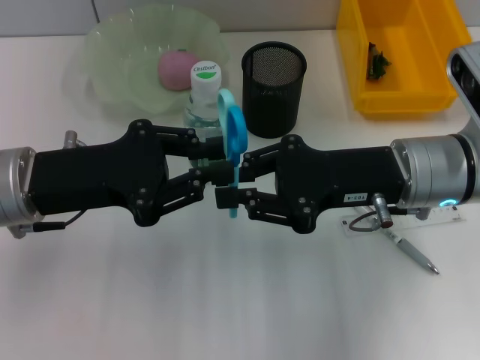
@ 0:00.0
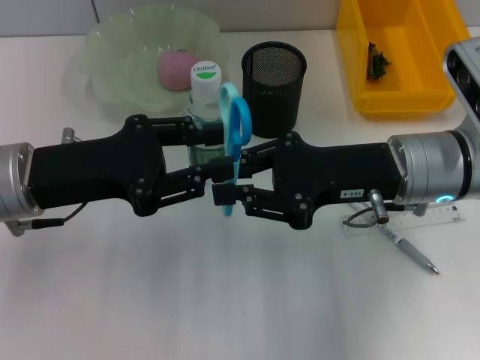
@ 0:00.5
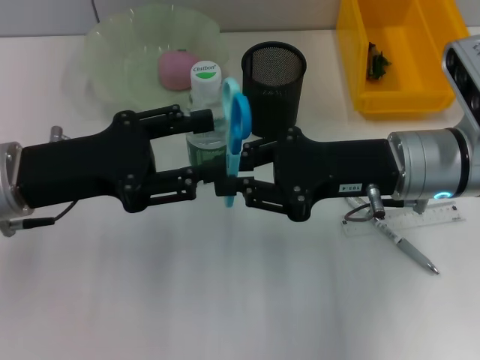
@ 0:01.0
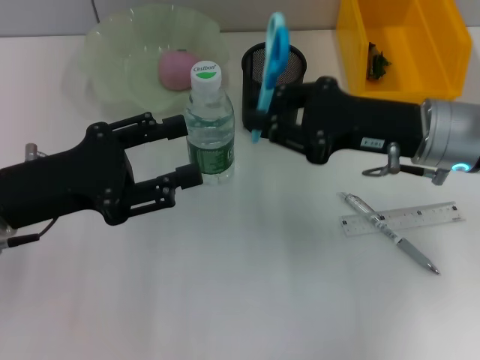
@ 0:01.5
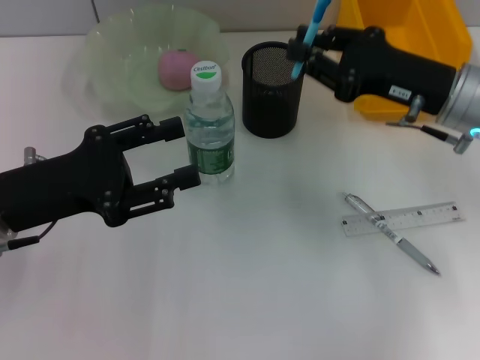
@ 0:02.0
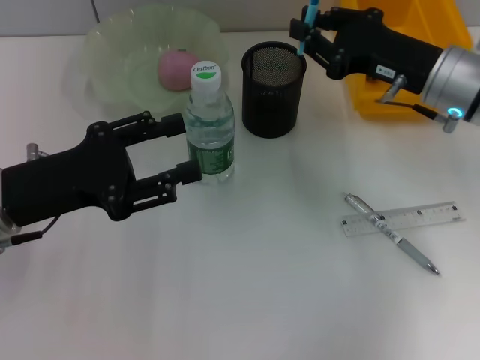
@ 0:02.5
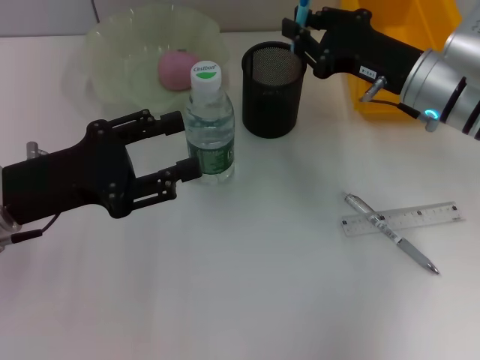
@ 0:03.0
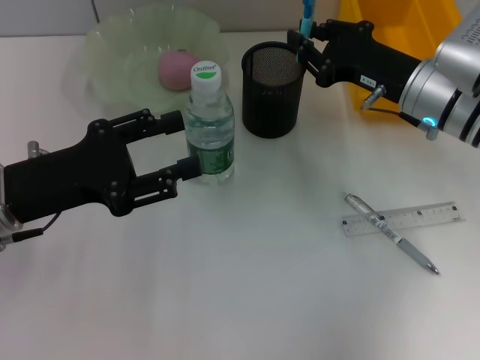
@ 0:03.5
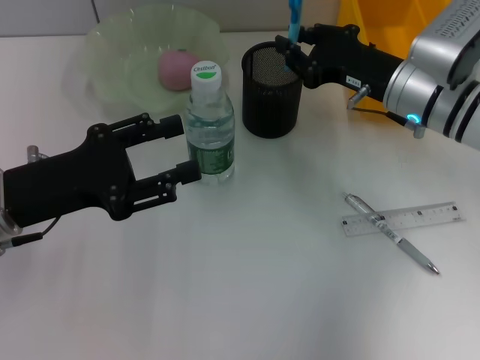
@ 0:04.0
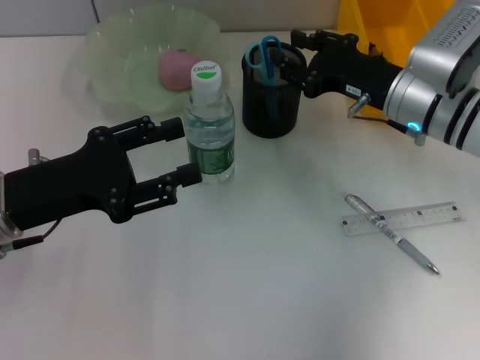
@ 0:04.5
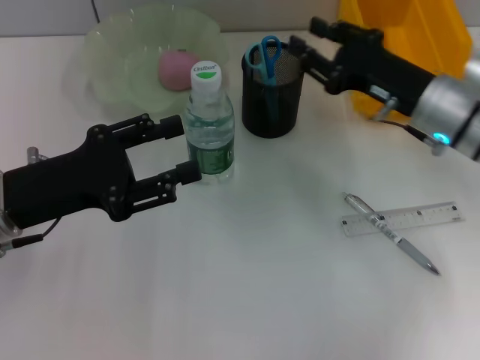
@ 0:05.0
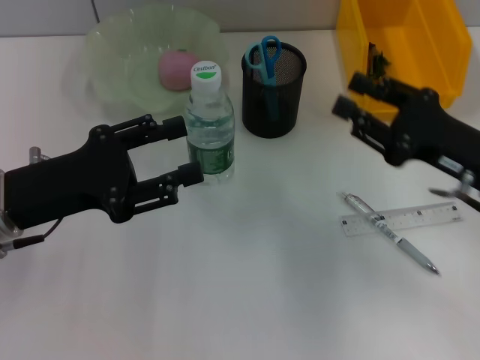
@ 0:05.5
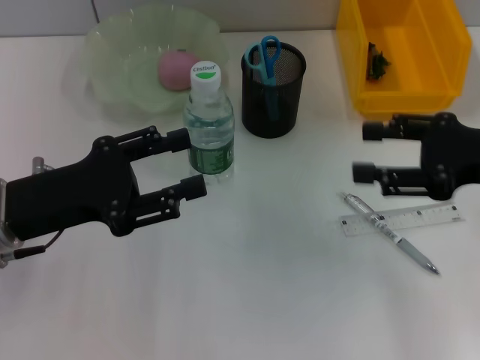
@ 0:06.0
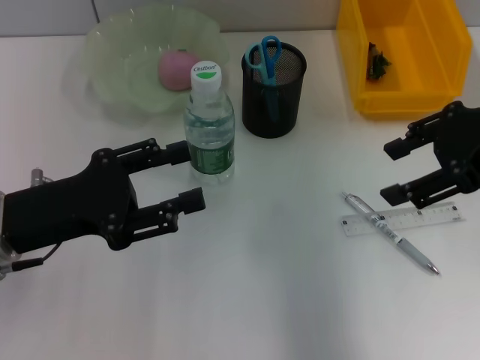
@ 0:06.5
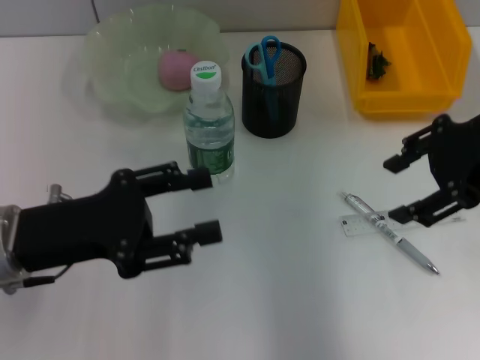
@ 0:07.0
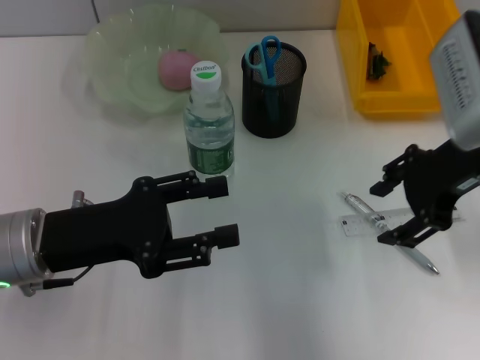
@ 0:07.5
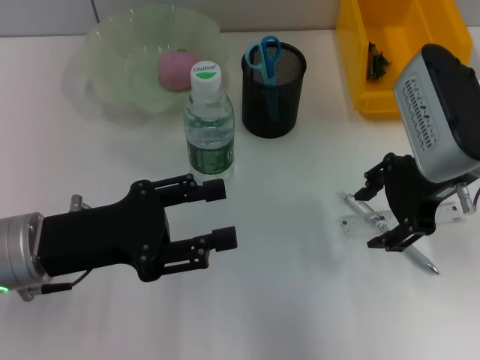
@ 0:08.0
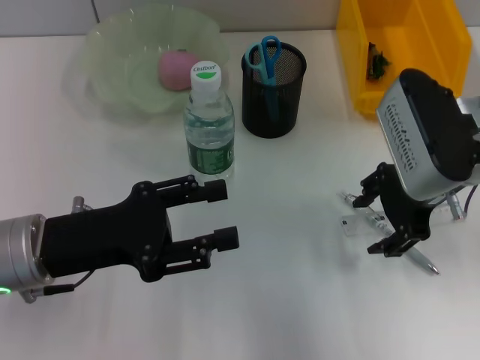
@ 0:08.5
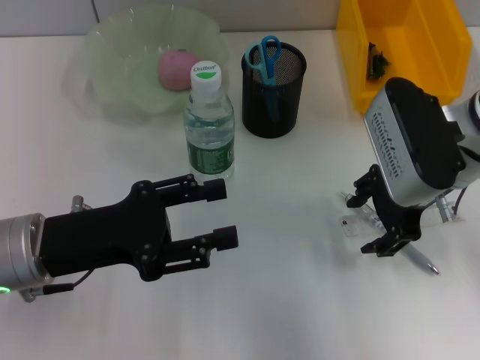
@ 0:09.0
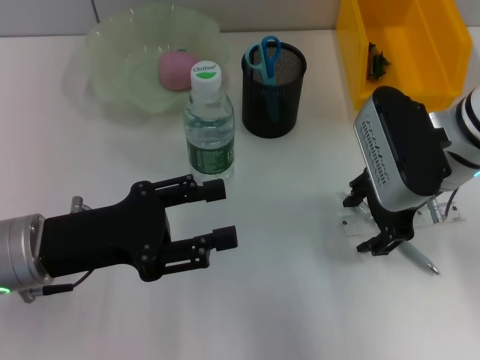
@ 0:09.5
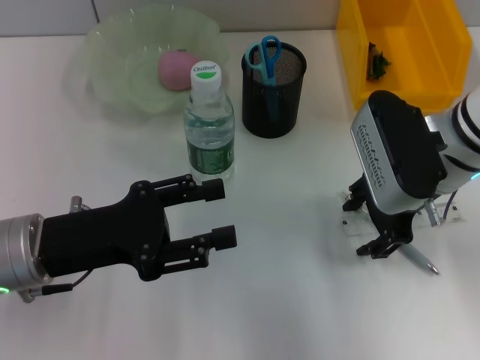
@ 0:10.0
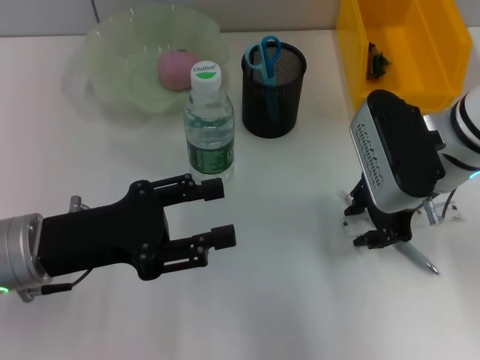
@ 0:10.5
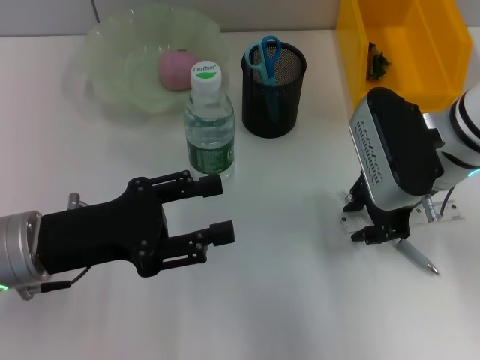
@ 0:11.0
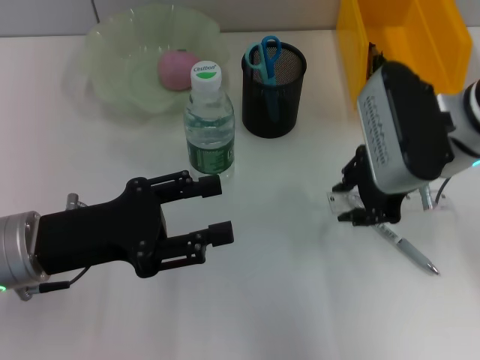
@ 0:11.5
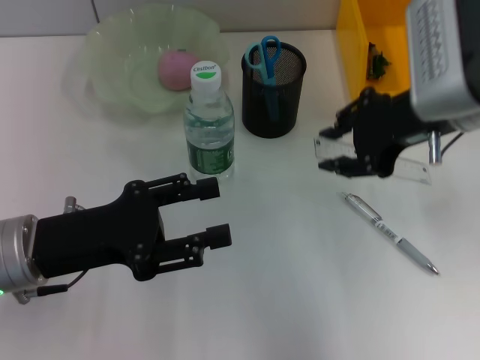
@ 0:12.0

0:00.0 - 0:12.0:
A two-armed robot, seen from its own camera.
Step, 0:01.0 - 0:04.5: Place the blue scissors into the pen holder with the left hand.
Step, 0:05.0 - 0:10.5: Grab the ruler with the right hand.
0:00.0 - 0:02.0: The right gripper travels to the right by approximately 5 cm. The left gripper opens up.
0:02.0 - 0:04.0: The right gripper ends up some 5 cm from where it was.
0:04.0 - 0:06.0: The right gripper heads backward, to the right and upward, covering approximately 15 cm, and opens.
0:06.0 - 0:08.0: The right gripper goes some 10 cm to the left.
0:08.0 - 0:10.0: The grippers make only small movements.
0:10.0 - 0:12.0: The right gripper moves upward, some 5 cm, and closes up.

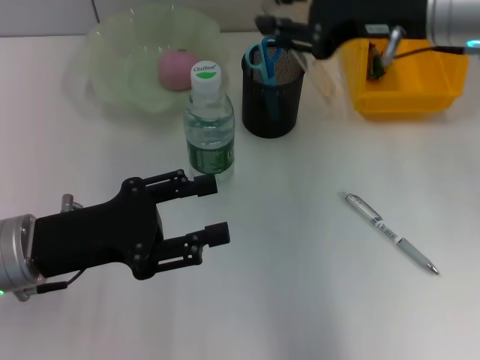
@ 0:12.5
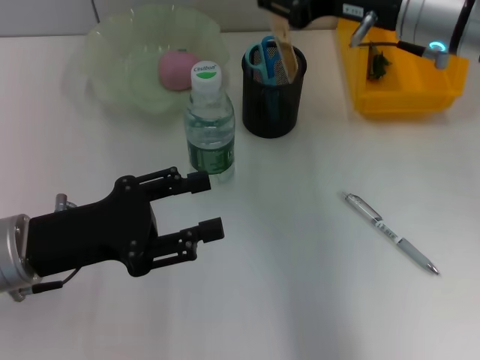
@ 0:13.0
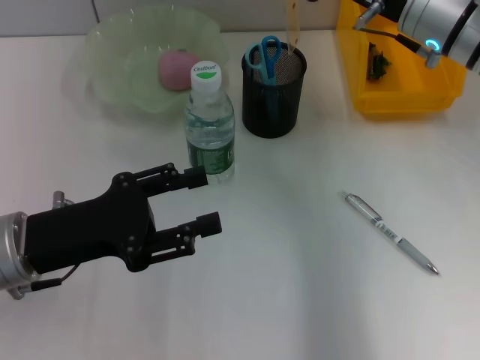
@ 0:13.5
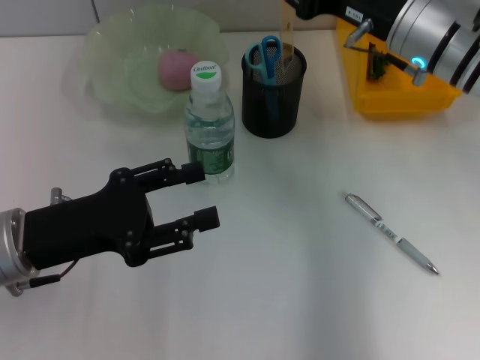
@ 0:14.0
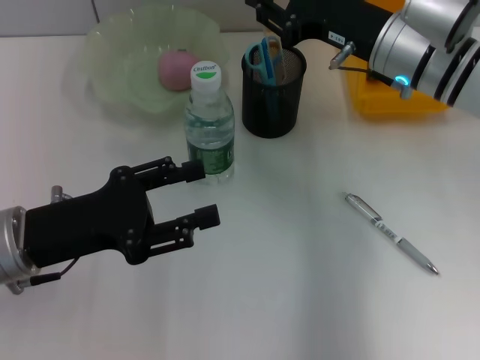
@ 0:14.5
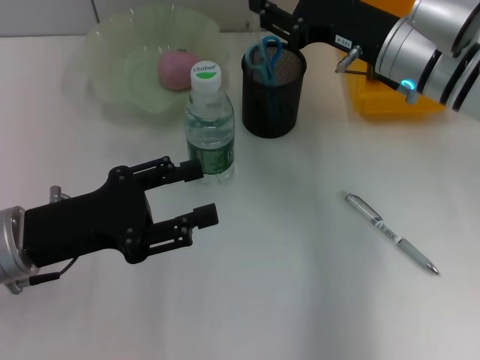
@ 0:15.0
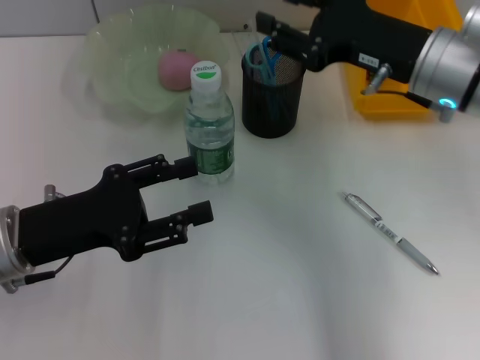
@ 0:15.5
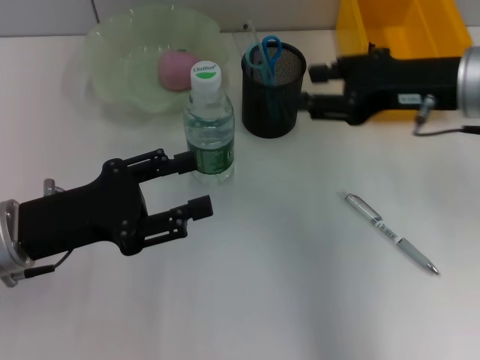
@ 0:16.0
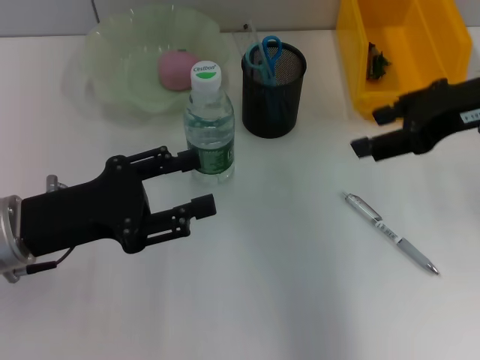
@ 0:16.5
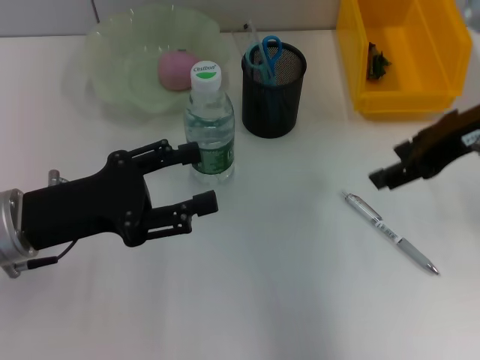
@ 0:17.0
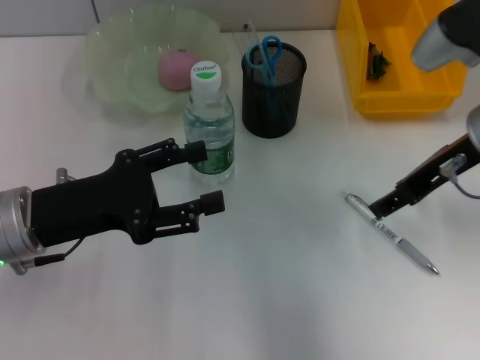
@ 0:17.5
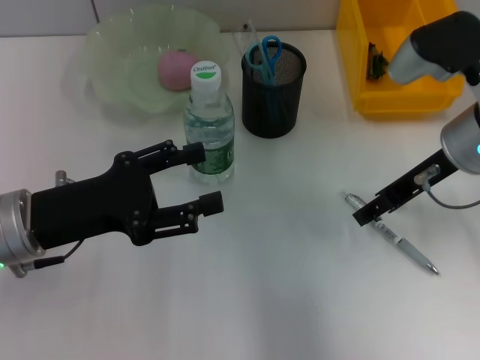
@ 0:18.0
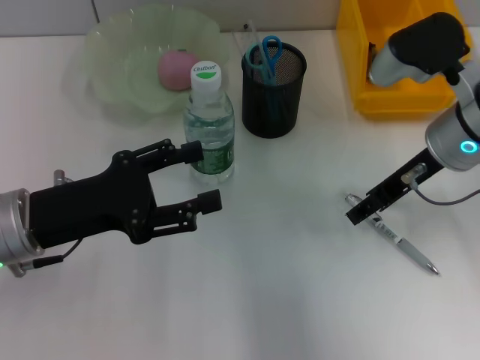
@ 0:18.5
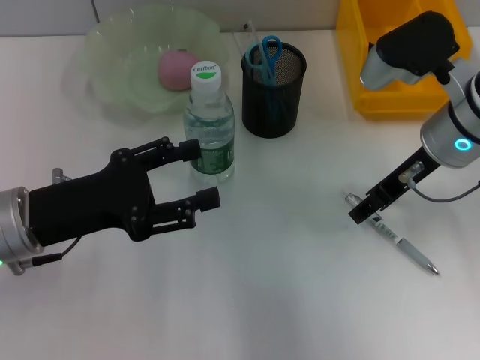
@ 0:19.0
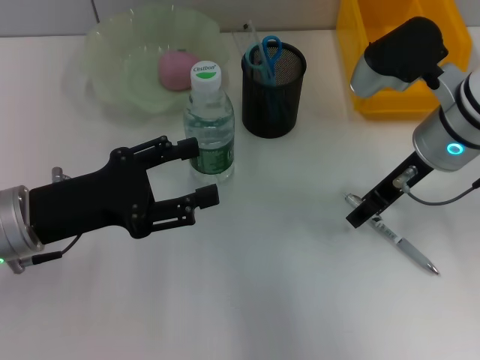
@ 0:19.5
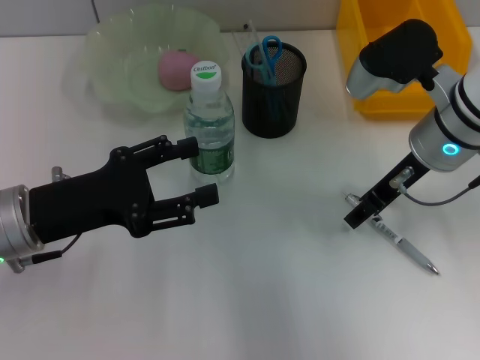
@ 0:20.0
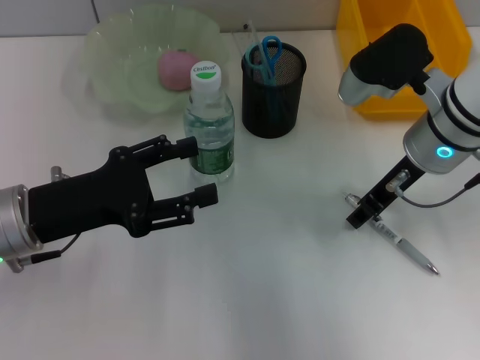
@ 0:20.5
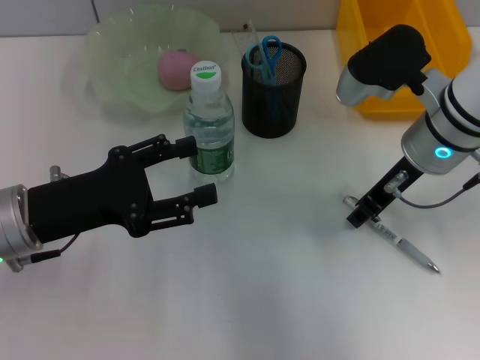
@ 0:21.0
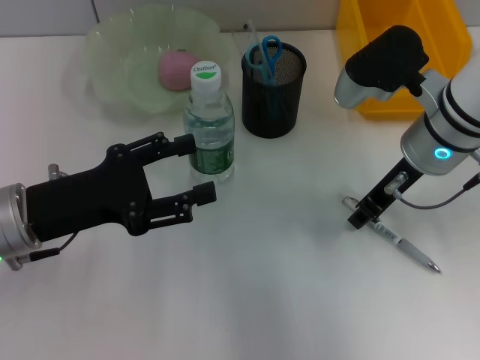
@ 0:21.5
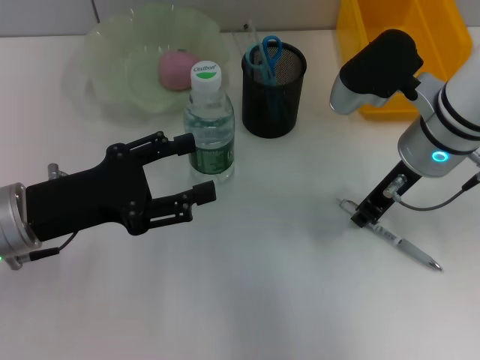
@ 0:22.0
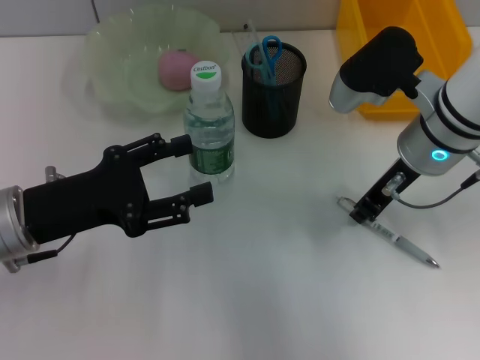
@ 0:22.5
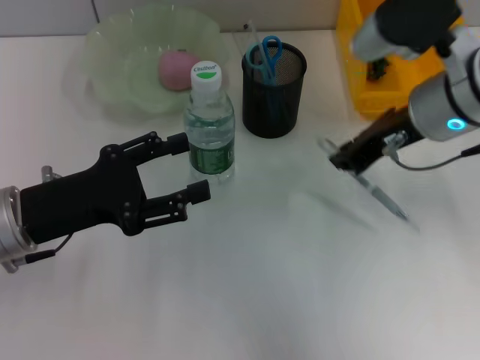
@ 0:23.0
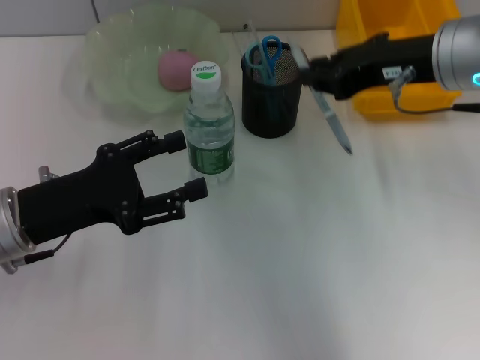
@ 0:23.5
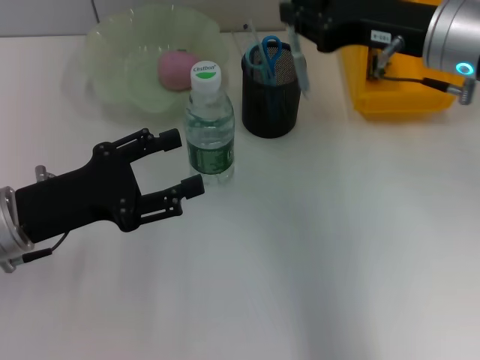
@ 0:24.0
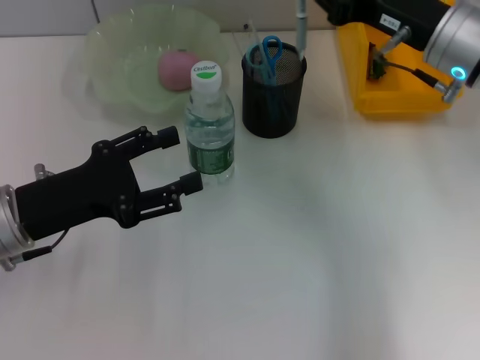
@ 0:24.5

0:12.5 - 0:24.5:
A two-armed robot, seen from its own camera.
Step, 0:12.5 - 0:15.5: Place the ruler into the pen holder with the right hand.
Step, 0:16.0 - 0:22.0: Grab the gray spring-action pen with the right hand.
0:12.5 - 0:14.5: The right gripper travels downward by approximately 10 cm.
0:14.5 - 0:16.5: The right gripper moves upward, to the right and backward, roughly 15 cm.
0:16.5 - 0:18.5: The right gripper travels downward by roughly 10 cm.
0:18.5 - 0:20.5: The grippers make only small movements.
0:20.5 - 0:22.5: The right gripper closes.
0:22.5 - 0:24.5: The right gripper travels upward and back again, about 10 cm each way.

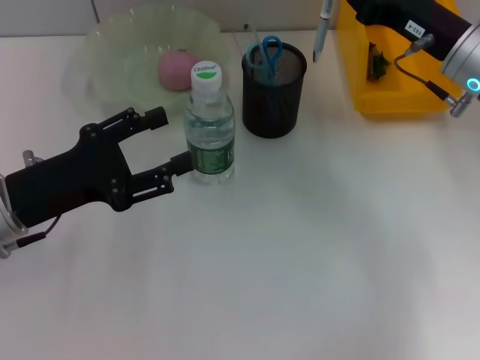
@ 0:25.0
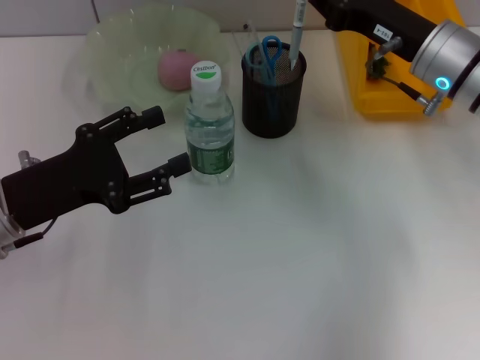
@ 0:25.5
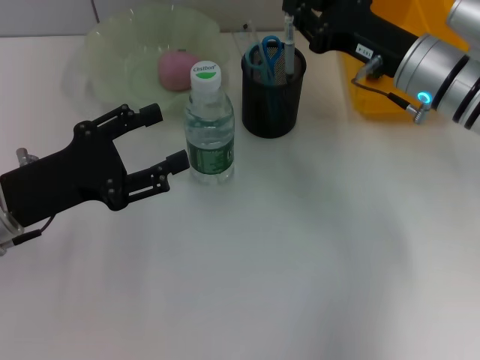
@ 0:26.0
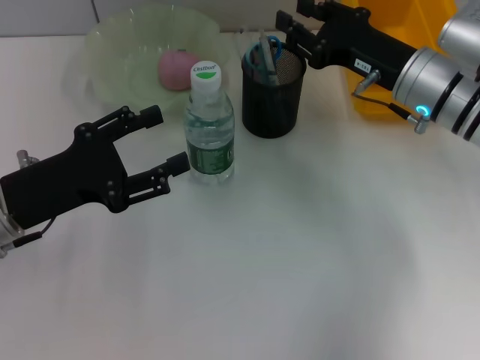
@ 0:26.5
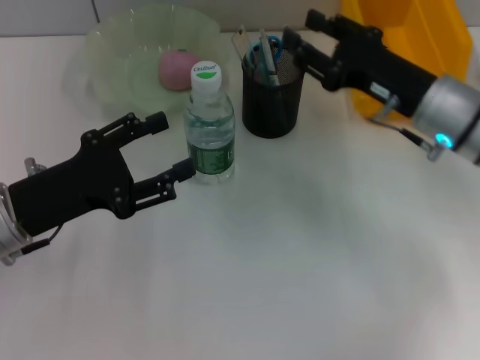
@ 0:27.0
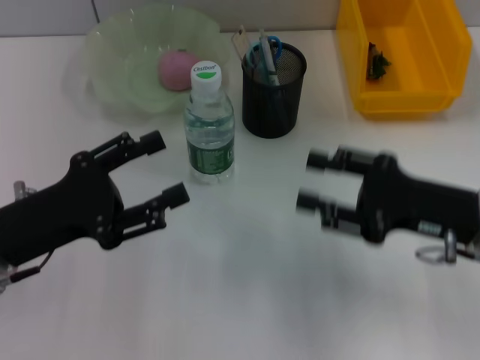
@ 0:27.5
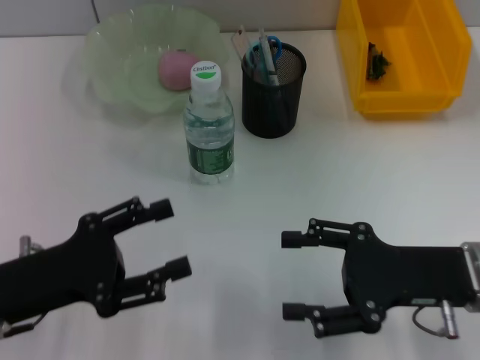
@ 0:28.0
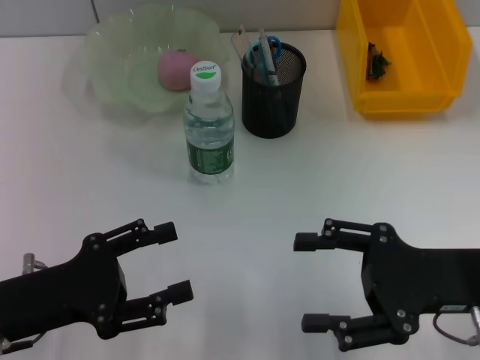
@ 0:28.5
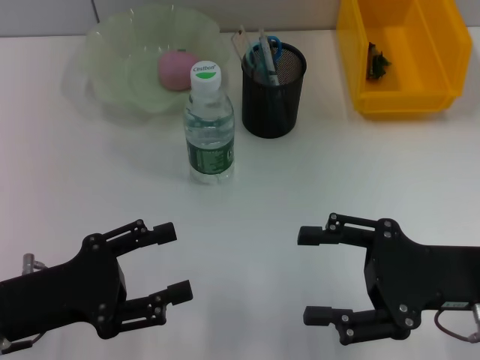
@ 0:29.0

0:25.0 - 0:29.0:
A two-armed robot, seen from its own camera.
0:25.0 - 0:27.0: The right gripper changes place by some 5 cm, and opens its fingers.
0:27.0 - 0:29.0: The left gripper goes about 5 cm backward; the right gripper shifts about 10 cm backward.
